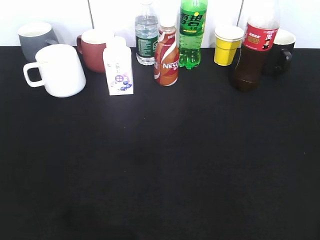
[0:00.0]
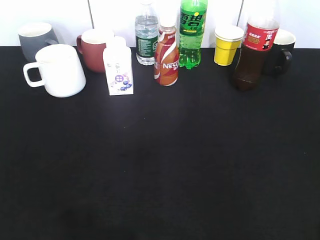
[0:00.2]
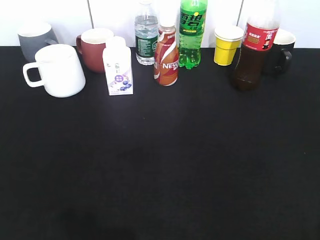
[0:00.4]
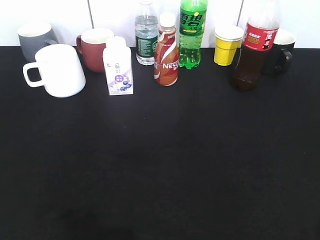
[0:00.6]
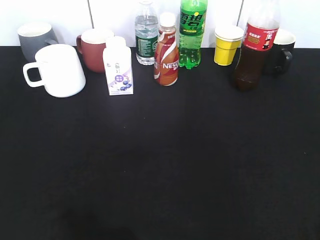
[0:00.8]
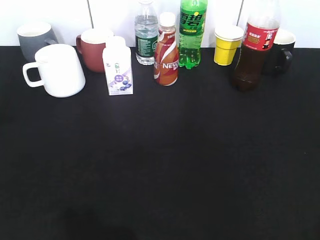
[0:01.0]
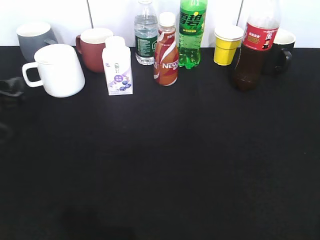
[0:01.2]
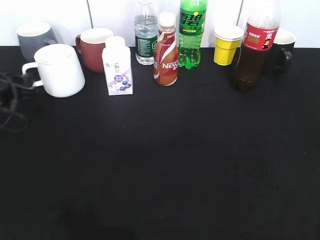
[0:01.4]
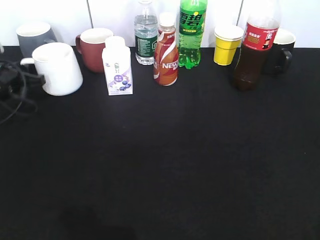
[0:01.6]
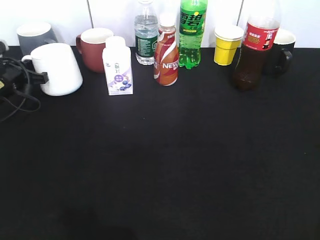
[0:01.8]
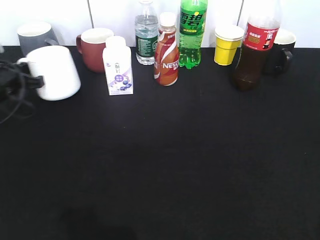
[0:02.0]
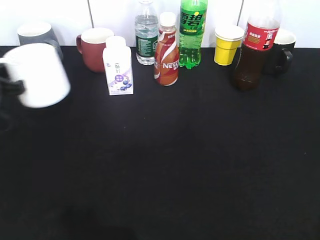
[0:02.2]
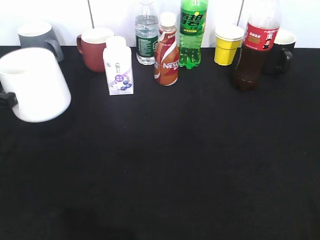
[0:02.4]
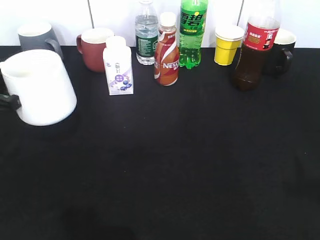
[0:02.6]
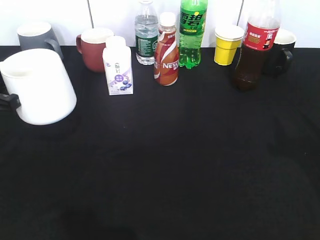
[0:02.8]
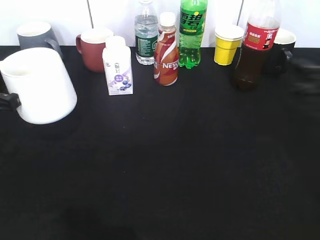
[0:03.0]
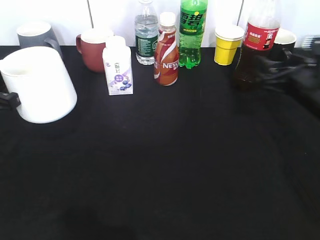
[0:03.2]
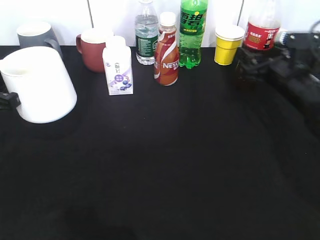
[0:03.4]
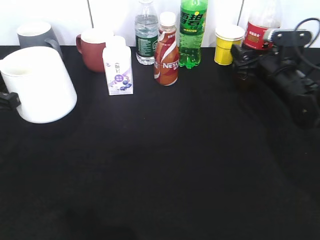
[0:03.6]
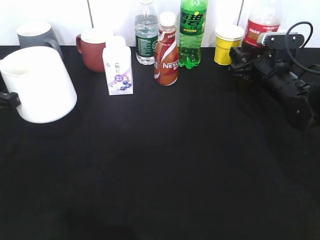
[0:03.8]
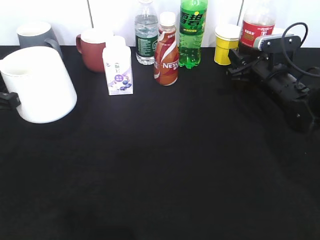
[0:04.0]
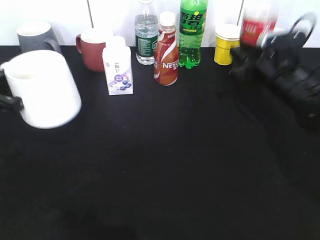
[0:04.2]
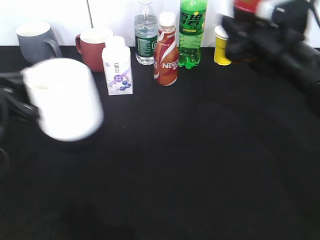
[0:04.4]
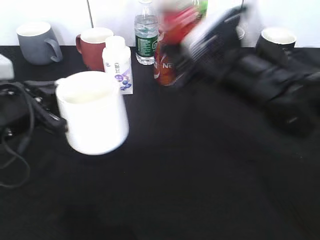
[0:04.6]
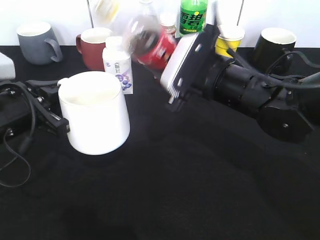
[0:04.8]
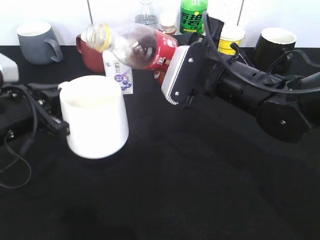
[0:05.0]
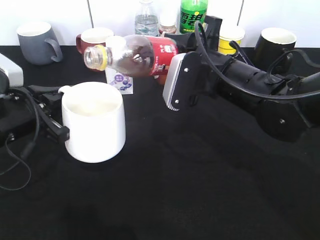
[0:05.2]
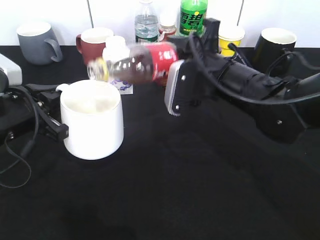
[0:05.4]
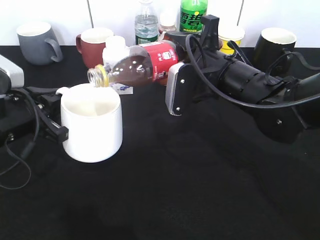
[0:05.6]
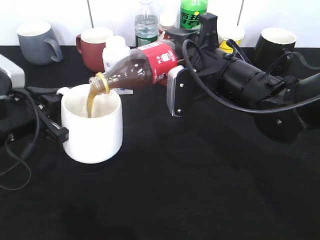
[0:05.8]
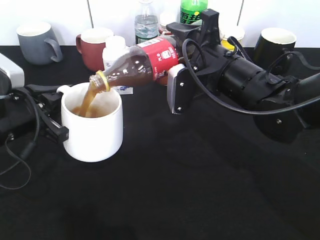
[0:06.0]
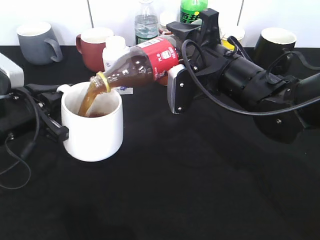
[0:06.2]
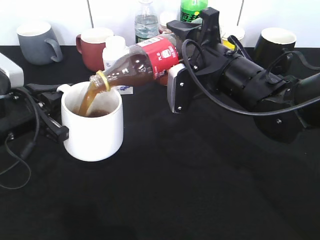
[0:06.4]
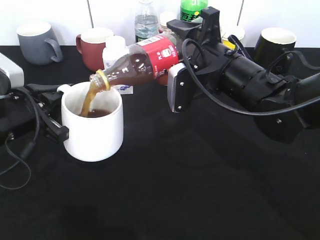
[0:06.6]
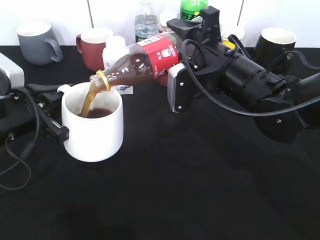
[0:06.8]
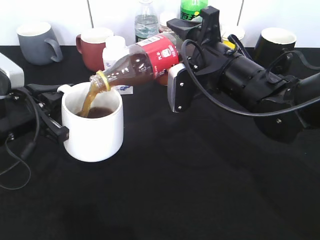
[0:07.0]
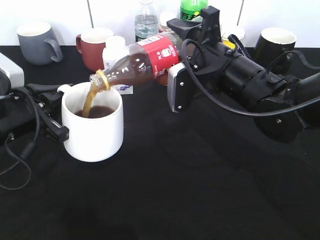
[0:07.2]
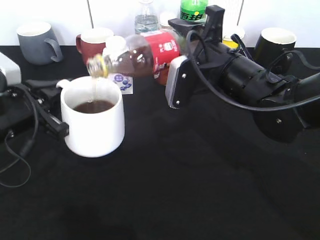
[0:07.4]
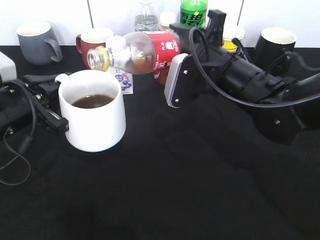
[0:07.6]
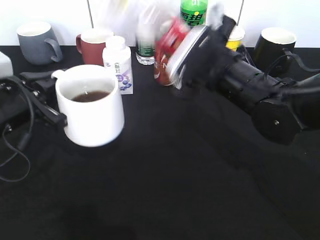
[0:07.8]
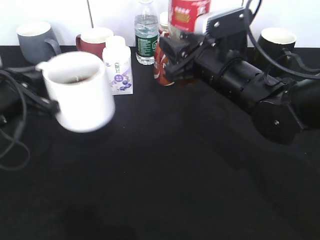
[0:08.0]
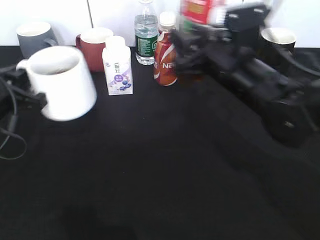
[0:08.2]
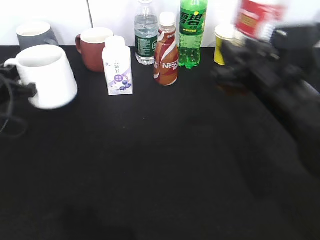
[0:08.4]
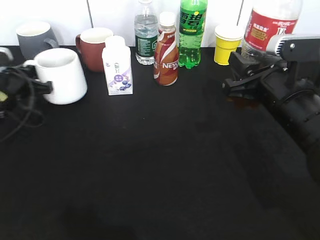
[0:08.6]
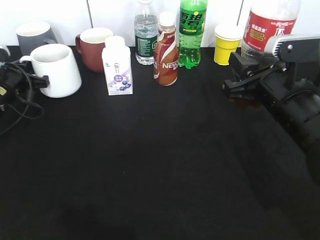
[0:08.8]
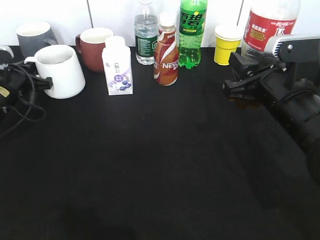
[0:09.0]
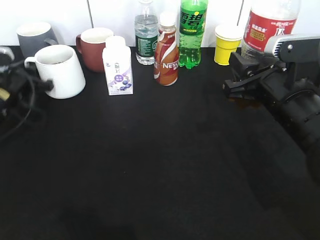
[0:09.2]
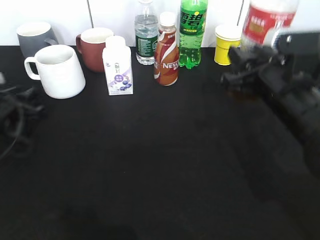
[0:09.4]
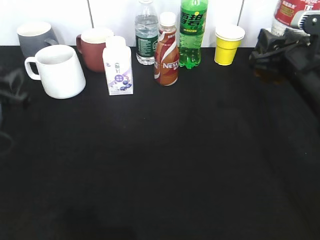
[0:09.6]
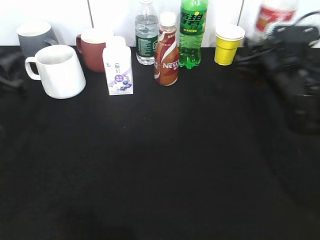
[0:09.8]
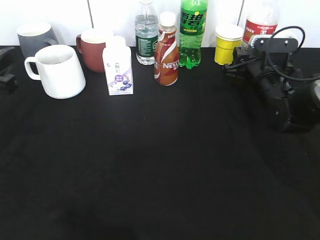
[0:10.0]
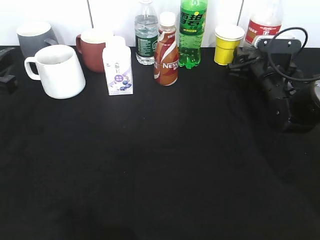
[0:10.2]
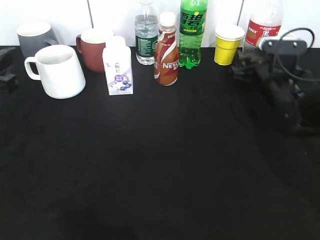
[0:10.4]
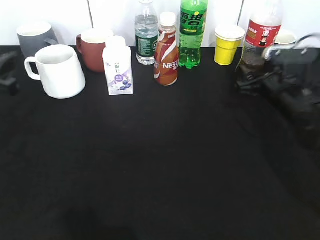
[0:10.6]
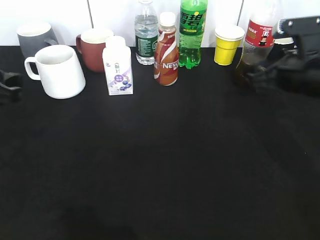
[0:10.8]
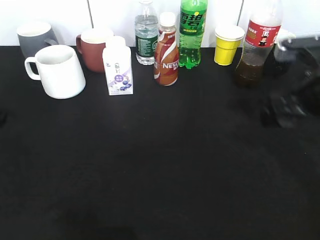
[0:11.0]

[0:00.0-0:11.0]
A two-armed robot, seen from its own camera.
Step, 0.0 to 1.8 s: Grasp the white cup with left gripper.
Step, 2.0 to 2.8 s: Lift the white cup with left gripper.
Step, 3.0 to 4.0 s: Grasp the bottle with cola with right gripper.
Step, 4.2 to 7.6 s: Pour the cola from bottle to cup with right gripper.
Step, 7.8 to 9.4 s: Place the white cup on the table with left gripper.
Step, 9.6 to 10.8 s: Place the cola bottle on the table with right gripper.
0.0 to 1.6 s: The left gripper heads forward and downward, covering some 40 cm, and closes.
1.6 to 3.2 s: The right gripper moves forward, approximately 30 cm, and opens, while the left gripper shifts roughly 15 cm backward and upward, and closes.
3.2 to 4.8 s: The right gripper heads to the left, covering about 15 cm, and closes up, while the left gripper moves to the right, roughly 5 cm.
7.8 to 9.4 s: The right gripper shifts about 10 cm to the right; the left gripper heads downward, to the left and forward, covering some 15 cm, and opens its fingers.
9.4 to 11.0 s: The right gripper shifts roughly 5 cm to the right, moves about 15 cm forward and comes back, and opens.

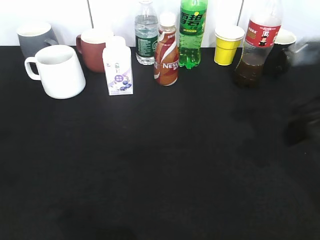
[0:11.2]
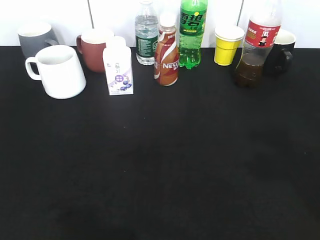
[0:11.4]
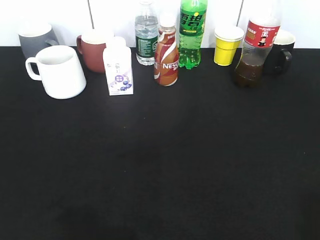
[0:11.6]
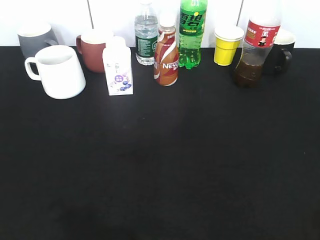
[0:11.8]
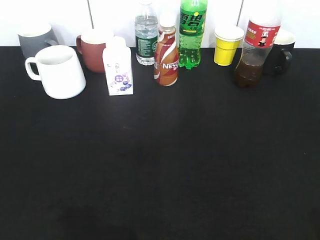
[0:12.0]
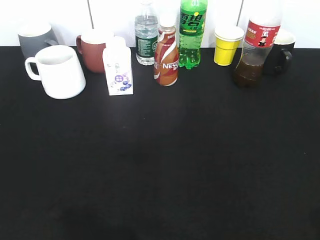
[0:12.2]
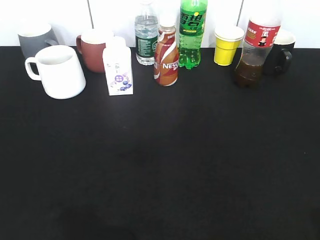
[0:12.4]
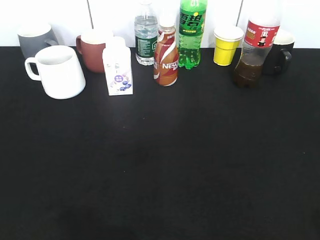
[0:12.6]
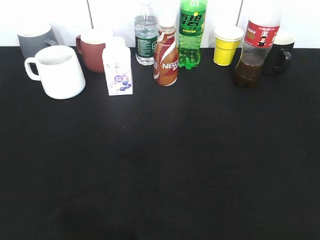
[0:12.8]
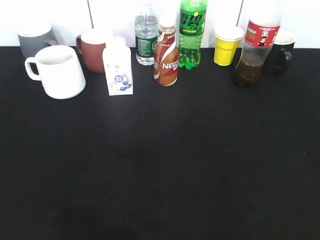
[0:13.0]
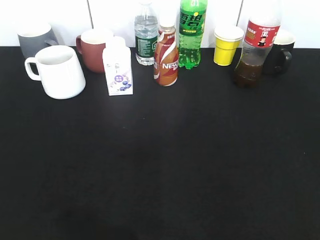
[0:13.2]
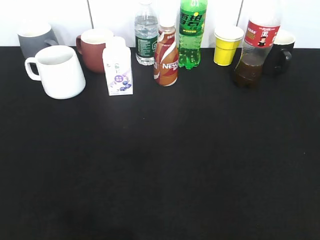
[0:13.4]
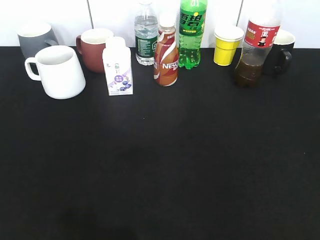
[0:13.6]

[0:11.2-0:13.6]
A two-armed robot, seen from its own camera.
11.2 to 12.4 s: Both grippers move backward, roughly 20 cm.

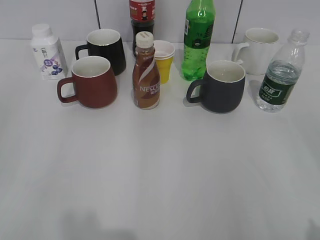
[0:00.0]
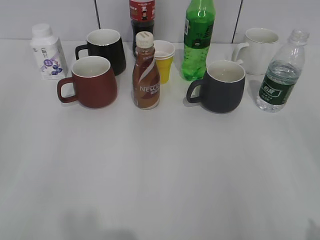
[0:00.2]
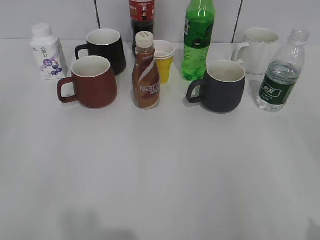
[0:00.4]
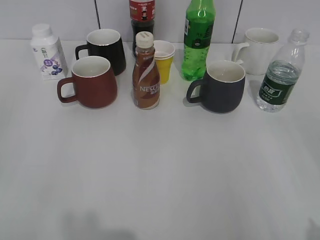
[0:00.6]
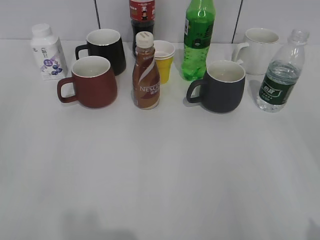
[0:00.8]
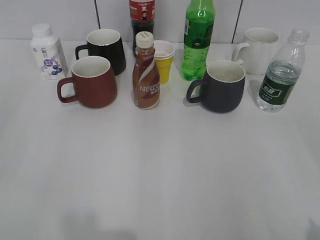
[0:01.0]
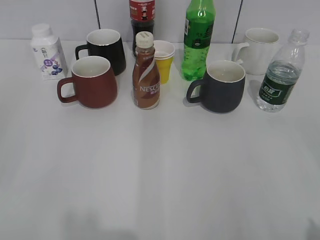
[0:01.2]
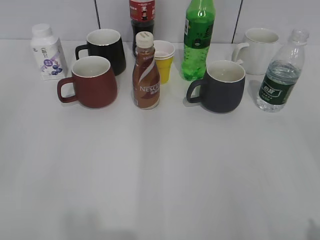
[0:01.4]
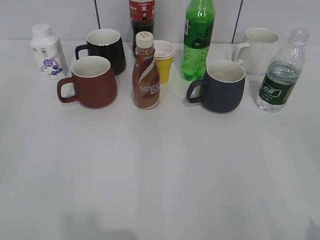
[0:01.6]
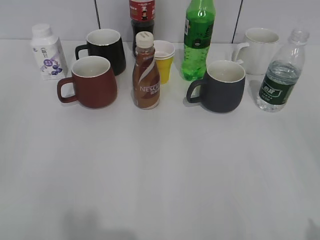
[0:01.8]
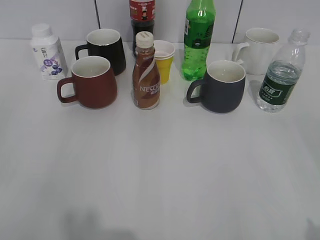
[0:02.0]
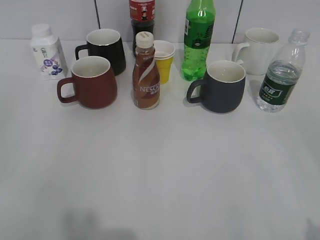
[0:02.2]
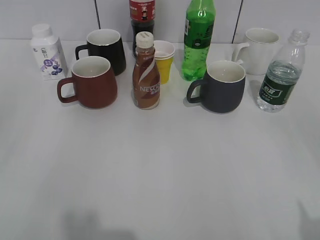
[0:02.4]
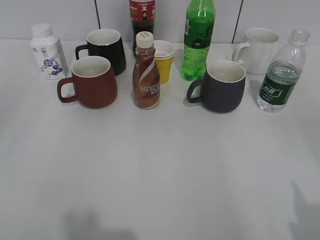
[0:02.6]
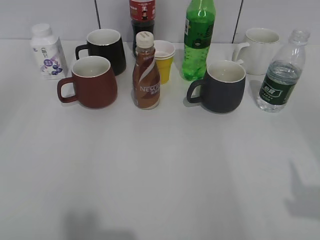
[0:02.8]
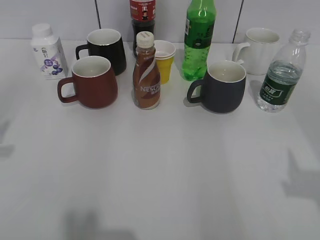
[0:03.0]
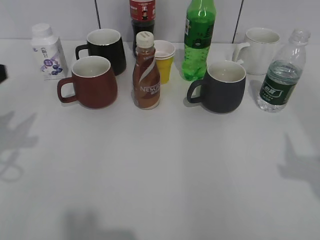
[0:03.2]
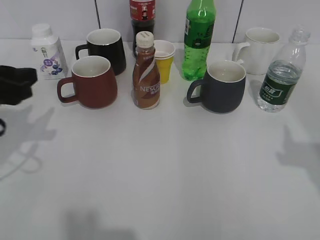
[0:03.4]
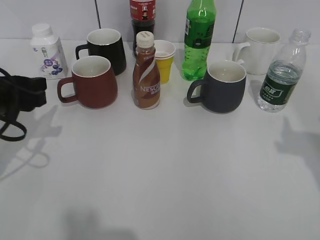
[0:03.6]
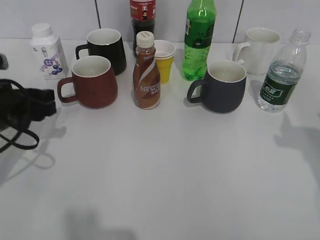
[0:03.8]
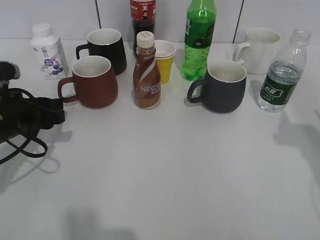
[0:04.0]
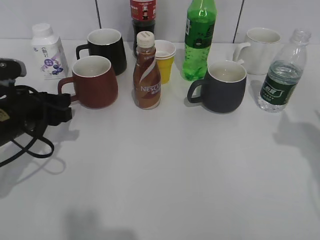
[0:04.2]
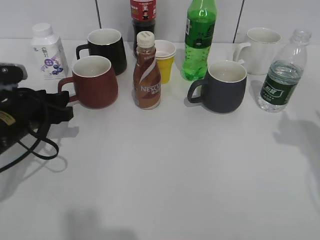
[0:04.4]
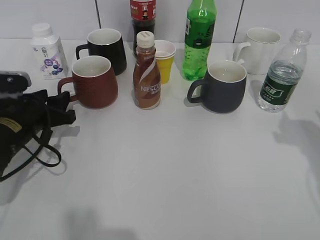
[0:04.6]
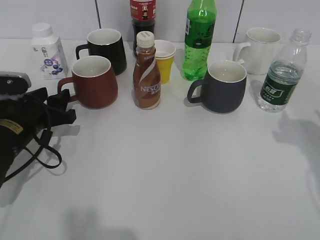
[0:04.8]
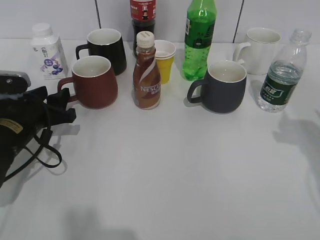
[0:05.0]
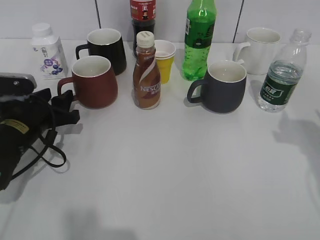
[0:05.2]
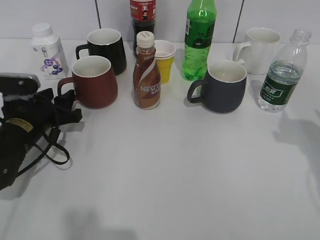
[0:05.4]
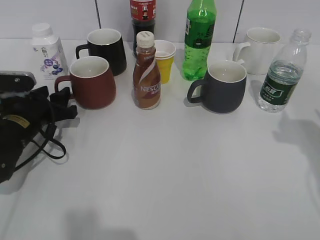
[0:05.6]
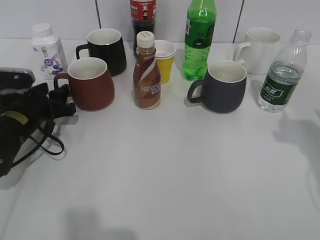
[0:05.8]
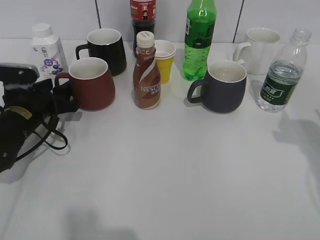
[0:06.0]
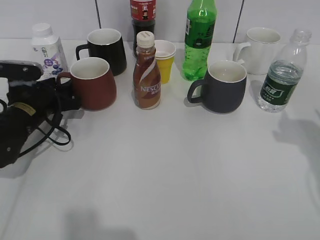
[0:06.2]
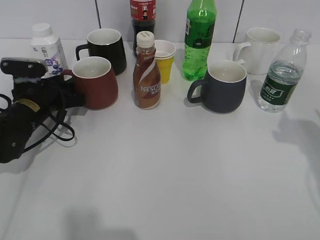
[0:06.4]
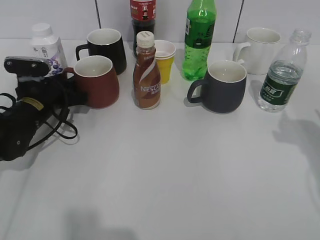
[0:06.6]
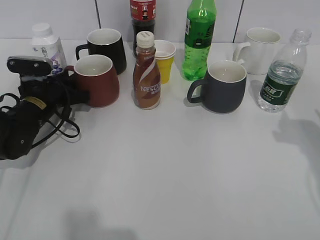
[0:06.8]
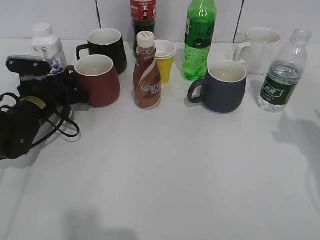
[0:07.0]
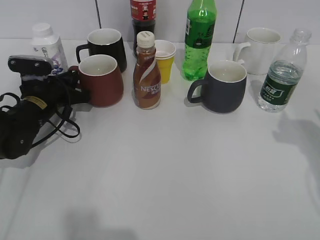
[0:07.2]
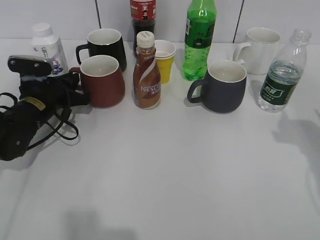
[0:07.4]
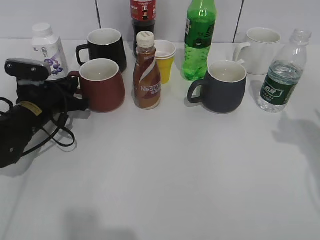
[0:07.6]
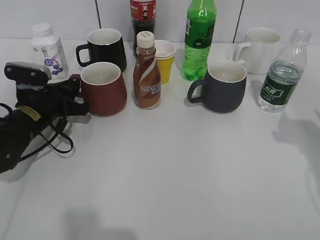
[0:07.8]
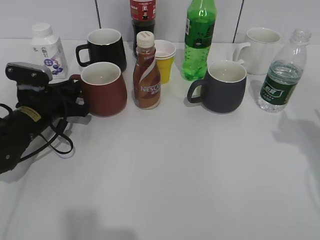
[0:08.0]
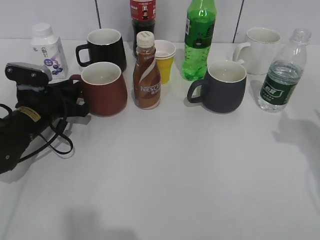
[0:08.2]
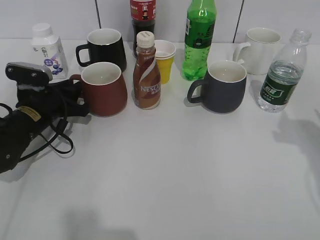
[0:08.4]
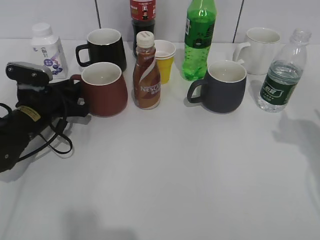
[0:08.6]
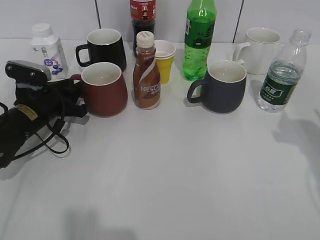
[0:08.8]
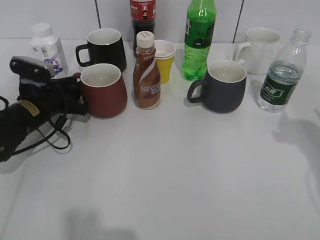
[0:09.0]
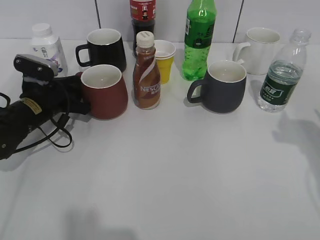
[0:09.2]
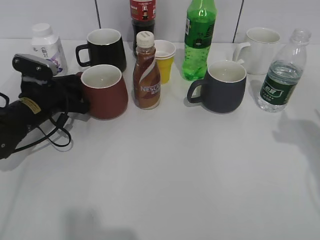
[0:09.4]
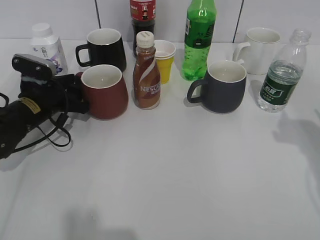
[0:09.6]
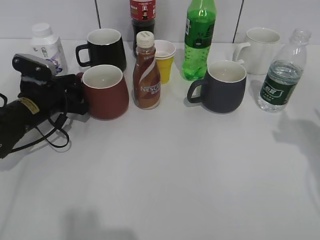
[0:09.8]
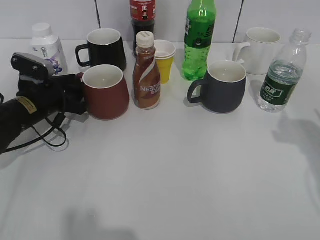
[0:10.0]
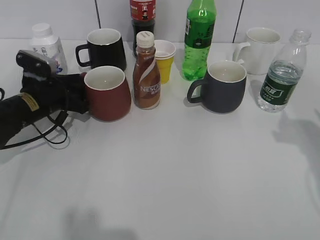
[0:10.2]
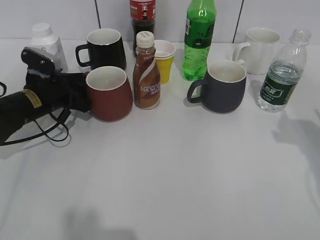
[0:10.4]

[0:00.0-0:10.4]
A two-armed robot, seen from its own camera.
Step, 1.2 to 7.6 s: Grasp the red cup with left gripper.
1.4 to 3.0 s: The left gripper travels forward by some 15 cm; the right gripper heads forward, covering approximately 10 cm.
3.0 to 4.4 s: The left gripper moves downward, forward and to the right, approximately 20 cm; the right gripper is displaced forward by roughly 10 cm.
4.4 to 6.0 s: The left gripper moves forward, some 5 cm.
6.0 to 7.4 s: The left gripper closes.
7.4 to 9.0 s: The left gripper opens.
9.0 to 10.4 s: The grippers make only small movements.
